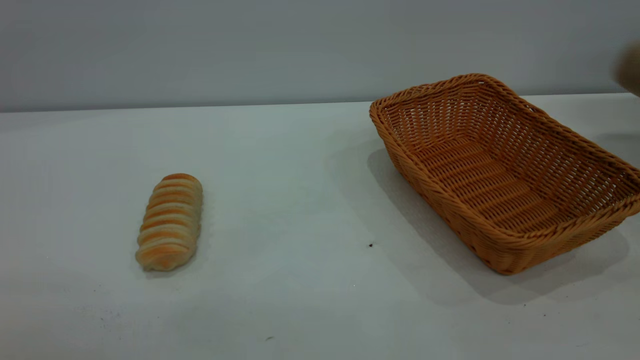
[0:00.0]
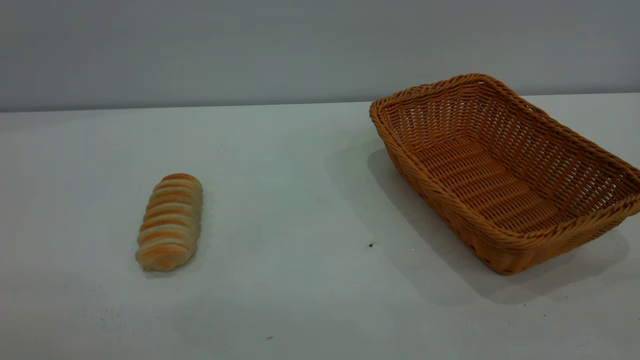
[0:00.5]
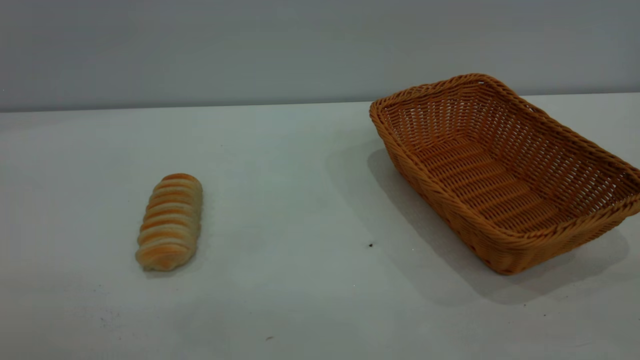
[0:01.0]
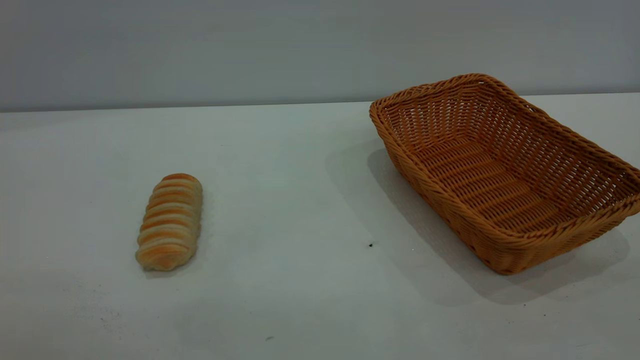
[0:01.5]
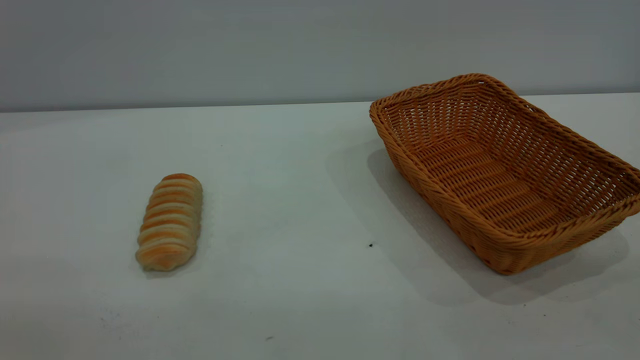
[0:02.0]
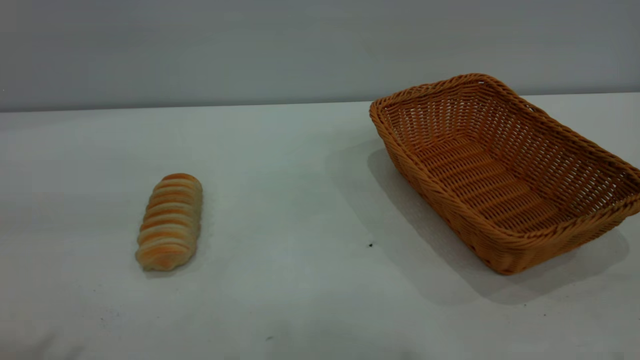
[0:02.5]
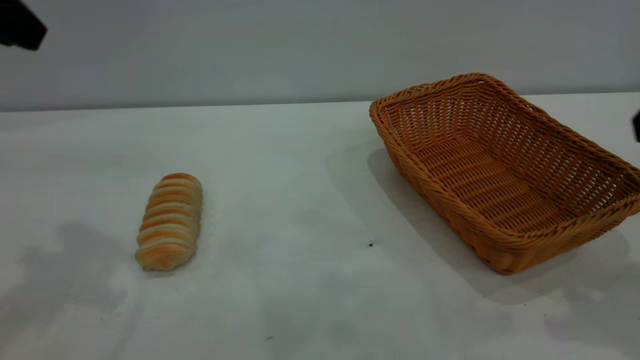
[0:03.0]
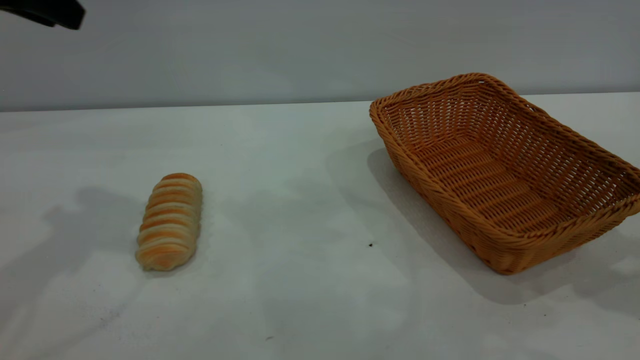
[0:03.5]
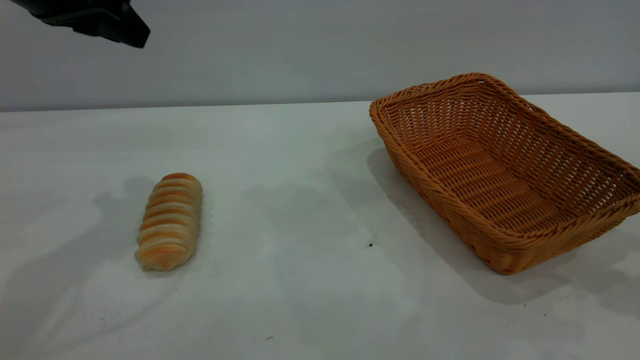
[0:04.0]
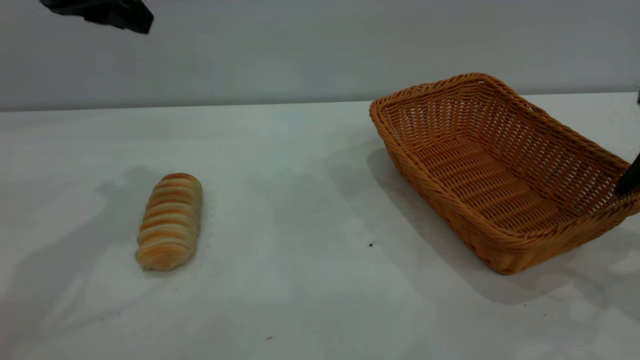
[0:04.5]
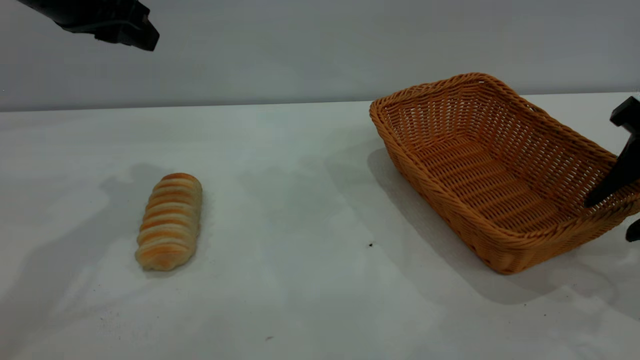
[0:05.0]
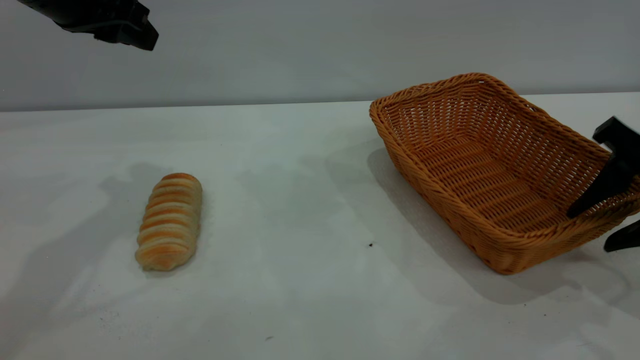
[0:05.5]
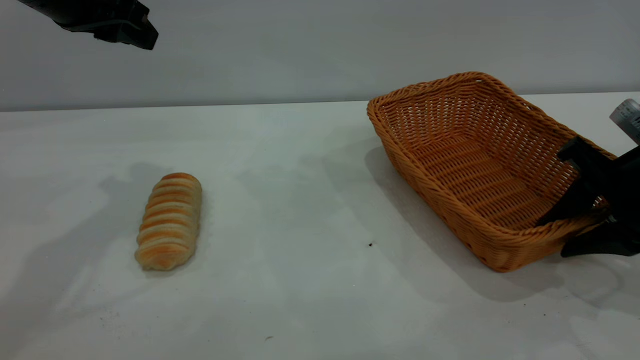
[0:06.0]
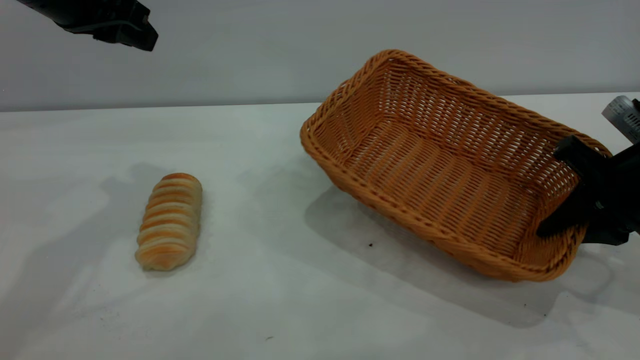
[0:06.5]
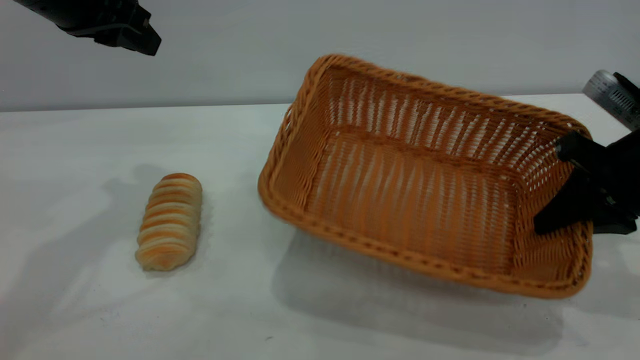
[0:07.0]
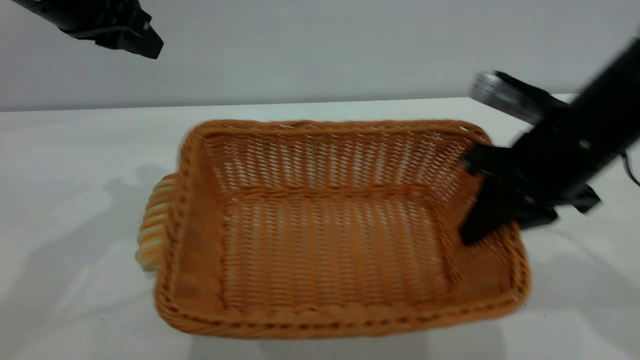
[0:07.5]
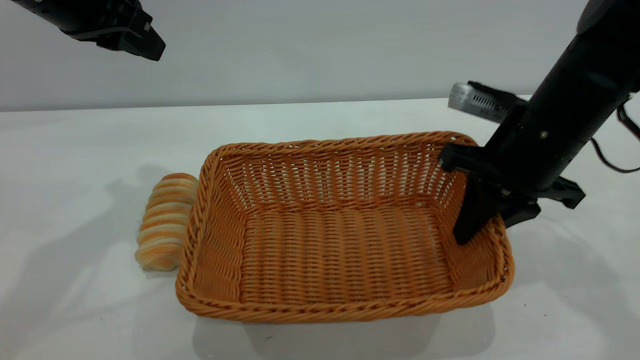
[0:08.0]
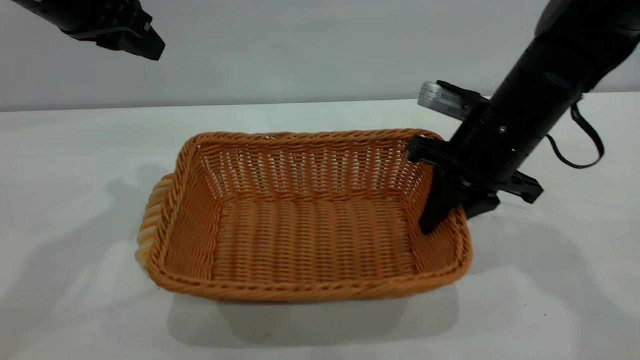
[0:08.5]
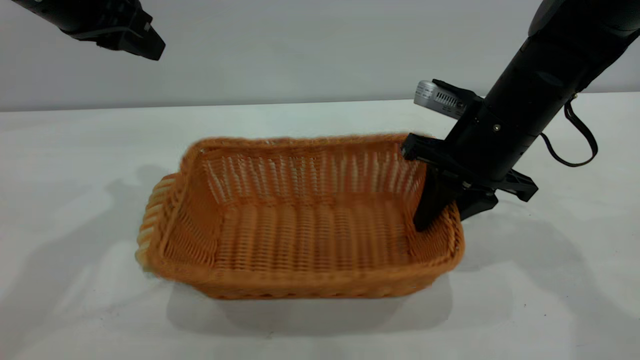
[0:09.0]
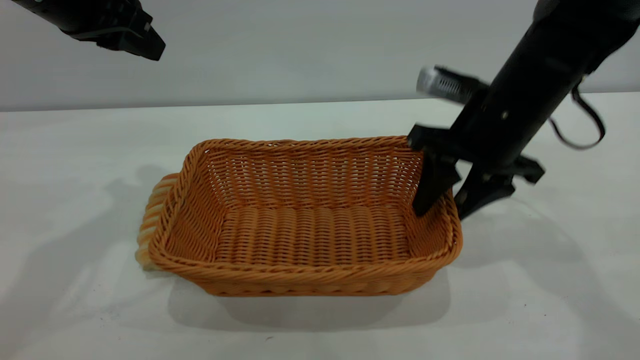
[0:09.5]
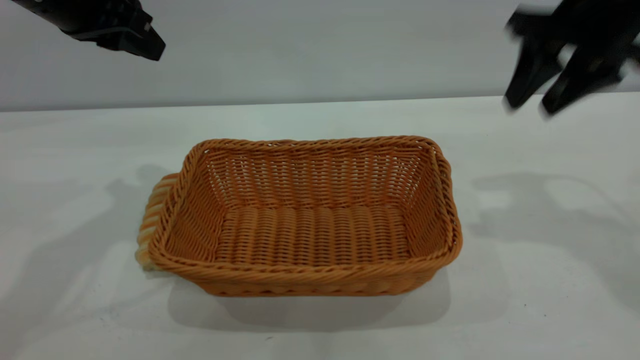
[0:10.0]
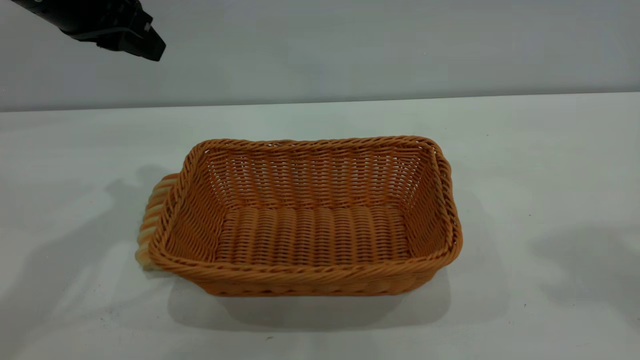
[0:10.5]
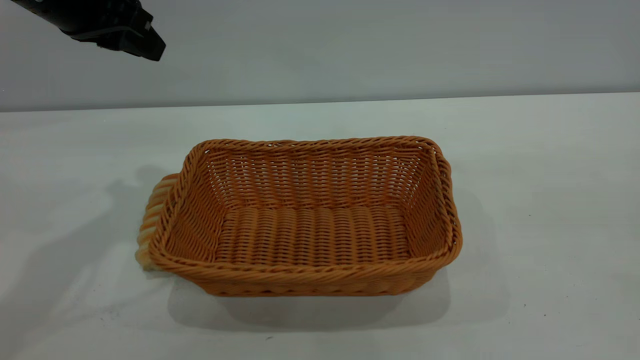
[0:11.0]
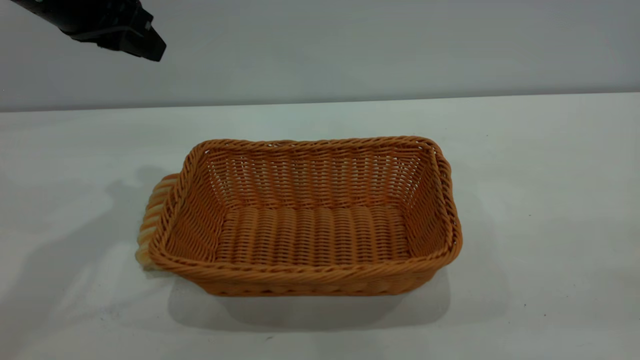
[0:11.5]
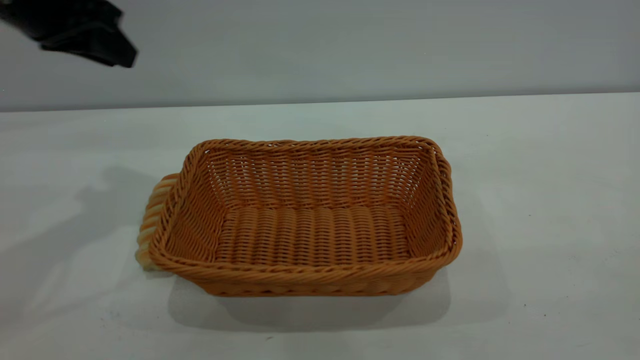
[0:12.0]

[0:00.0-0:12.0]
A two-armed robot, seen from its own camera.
Task of the whole recording: One hand grasps the yellow basket and places it in the middle of the table, while the other hand picks up the long bread and puts it into the yellow basket.
Step, 0:00.0 to 0:09.5: Move the basket to the center of view.
0:00.0 to 0:02.0: The grippers move only a little.
0:02.0 to 0:04.0: The left gripper goes roughly 40 cm forward.
0:04.0 to 0:06.0: The right gripper goes some 15 cm downward, and closes its fingers.
0:06.0 to 0:08.0: The right gripper shifts roughly 10 cm to the left, and closes.
0:08.0 to 0:10.0: The right gripper is displaced upward and to the right by some 15 cm, and opens.
0:10.0 to 0:12.0: The right gripper shifts some 40 cm backward.

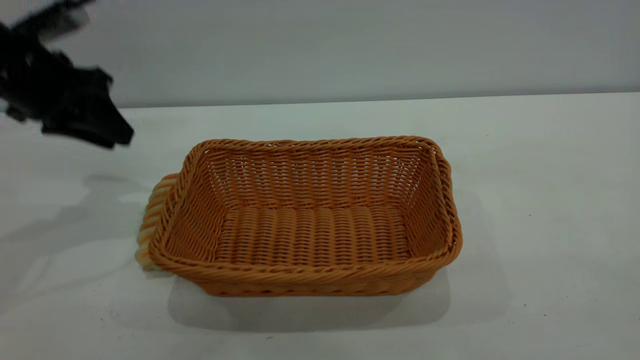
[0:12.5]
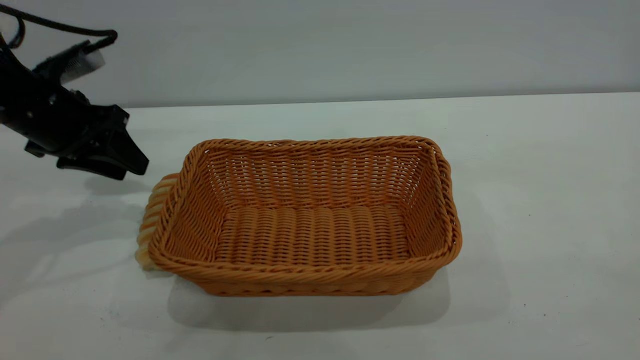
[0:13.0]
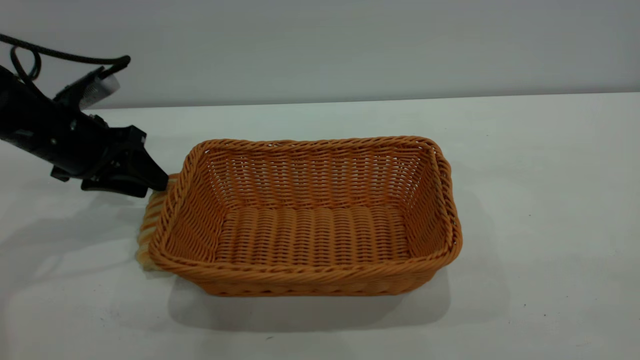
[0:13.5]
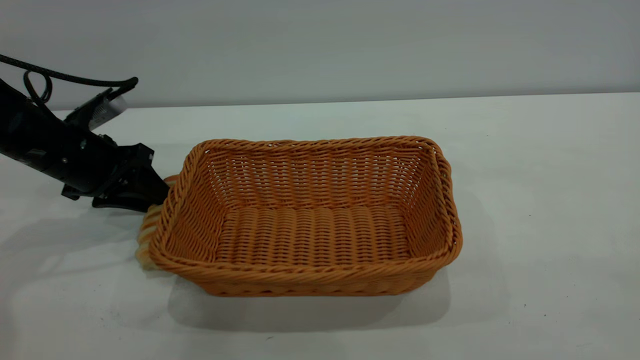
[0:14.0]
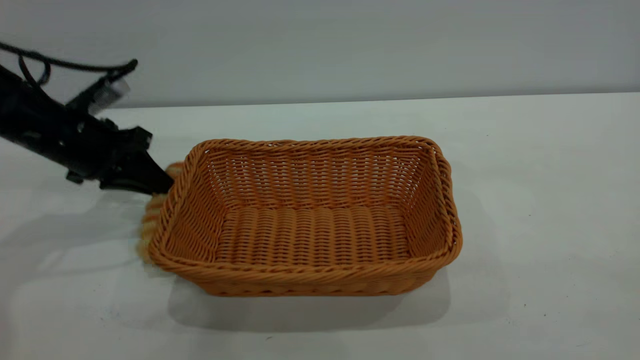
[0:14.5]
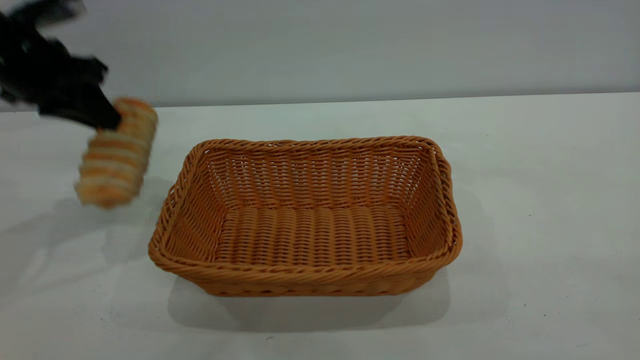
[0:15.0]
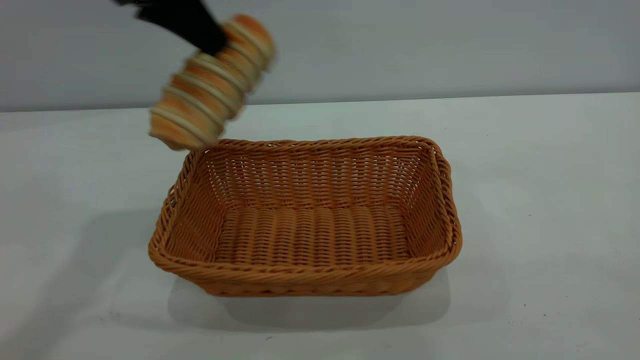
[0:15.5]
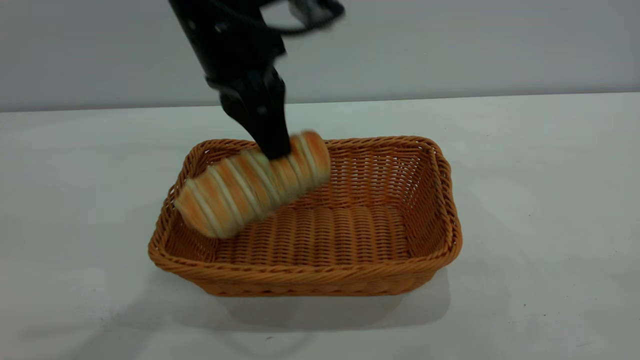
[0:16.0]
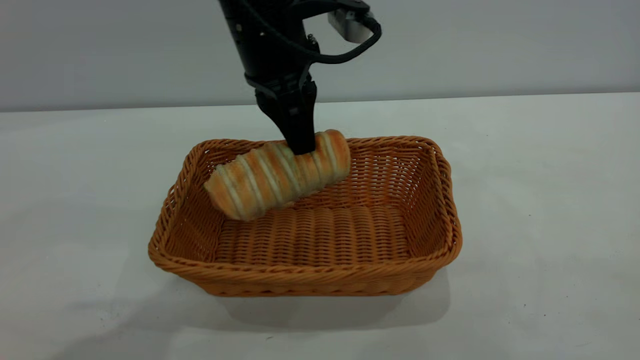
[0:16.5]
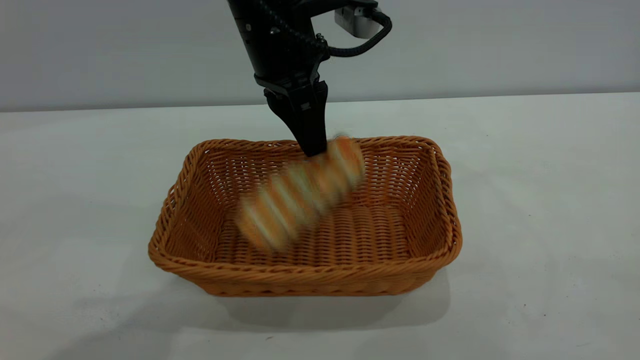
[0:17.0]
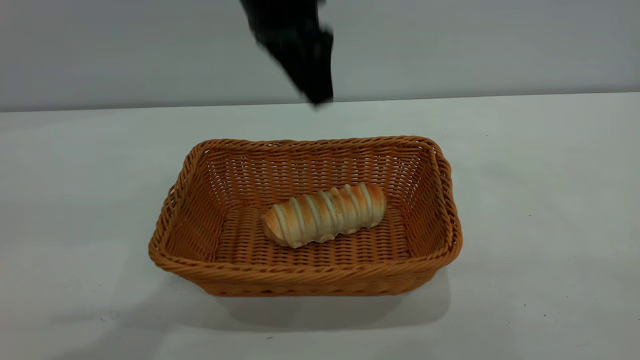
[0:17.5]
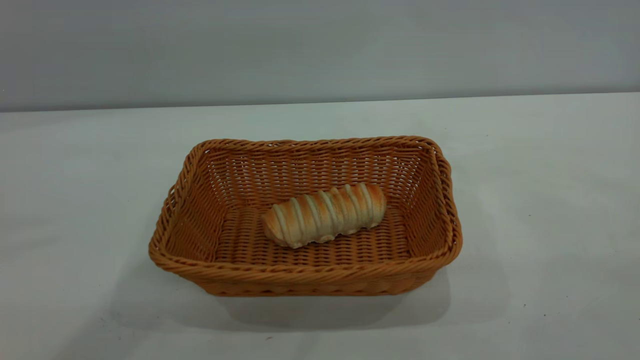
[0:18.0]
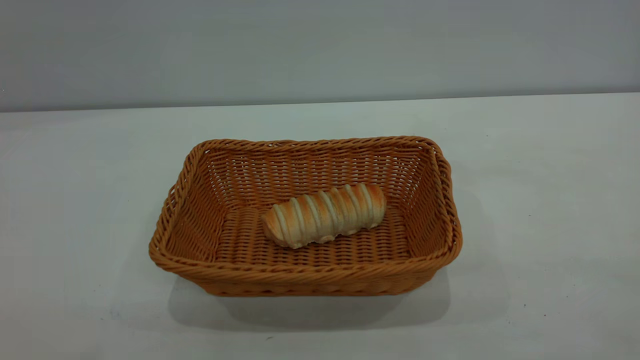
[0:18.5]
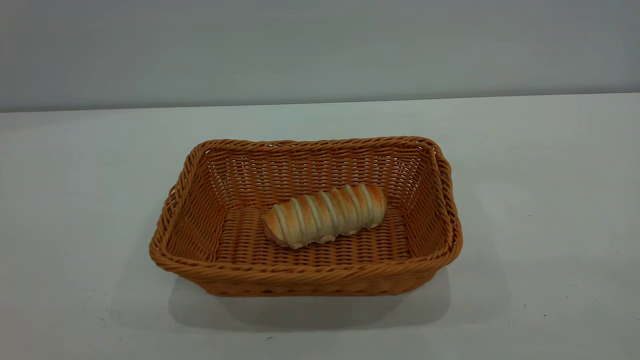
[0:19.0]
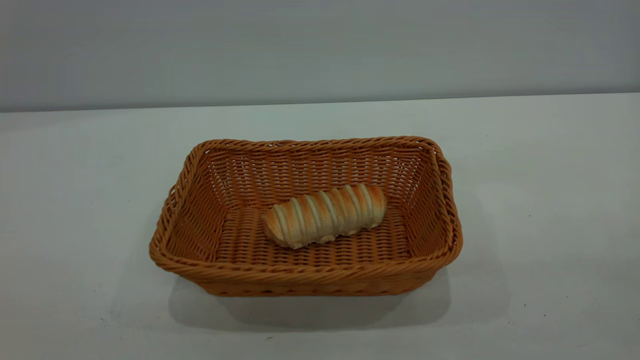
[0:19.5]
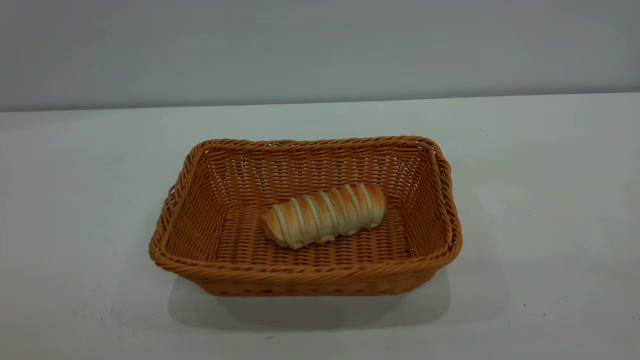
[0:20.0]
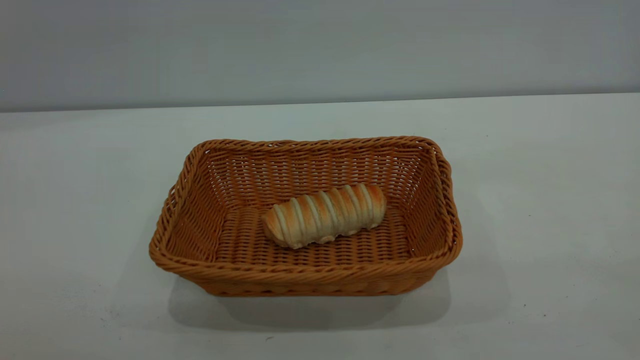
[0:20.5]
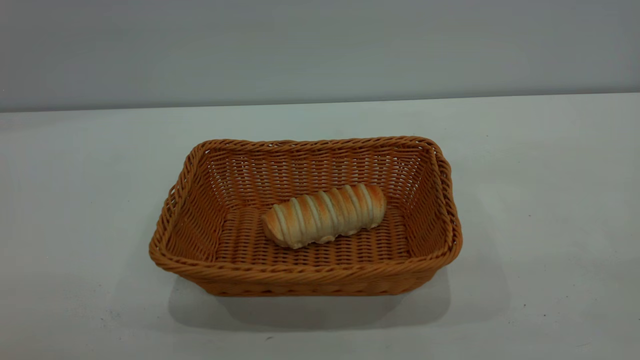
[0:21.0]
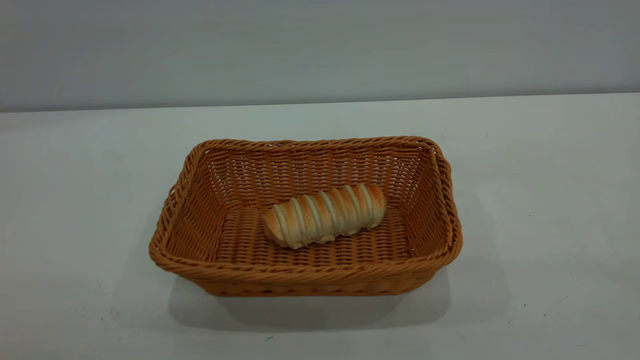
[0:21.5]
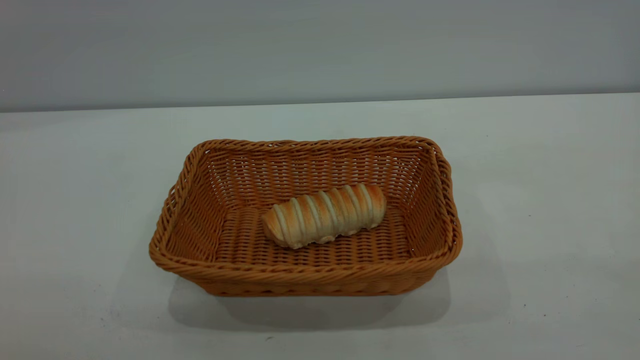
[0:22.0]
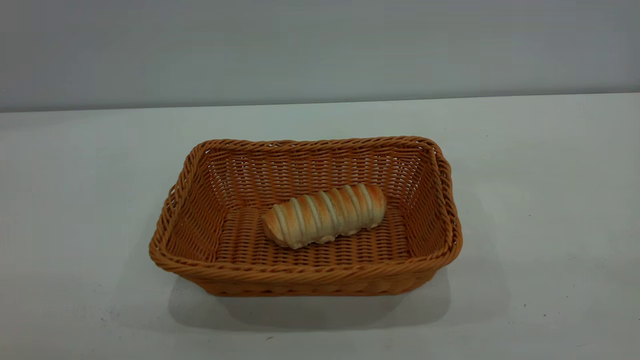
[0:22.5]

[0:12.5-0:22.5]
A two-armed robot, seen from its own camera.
Task of the whole recording: One hand grasps the yellow basket and places it in the middle of the table, while the other hand picks up the long bread and puts it into the yellow basket.
Step, 0:15.0 to 0:17.0: place the bread into the basket.
0:12.5 to 0:14.5: The left gripper is displaced downward by some 5 cm, and closes up.
0:14.5 to 0:16.5: The left gripper heads to the right and upward, covering about 25 cm.
0:16.5 to 0:18.5: The left gripper goes roughly 50 cm upward, backward and to the left, and opens.
